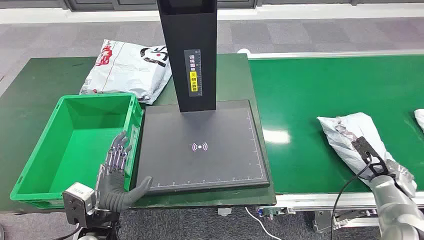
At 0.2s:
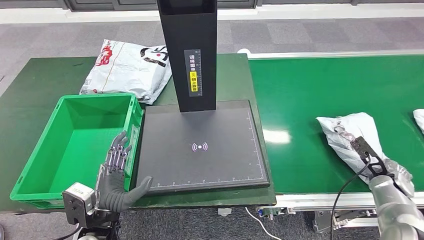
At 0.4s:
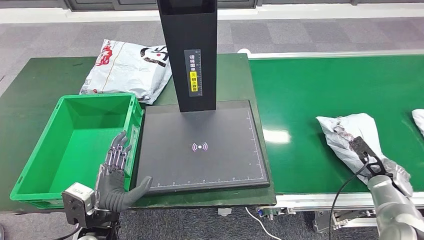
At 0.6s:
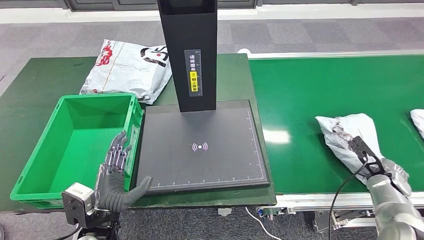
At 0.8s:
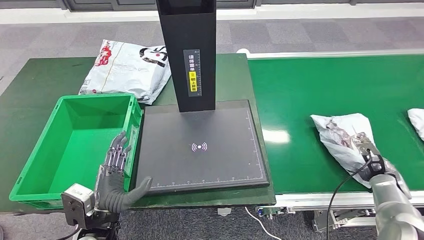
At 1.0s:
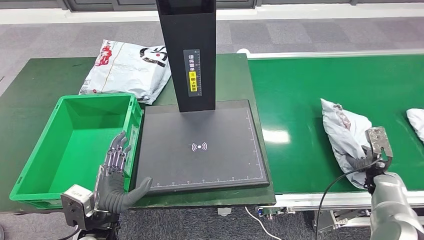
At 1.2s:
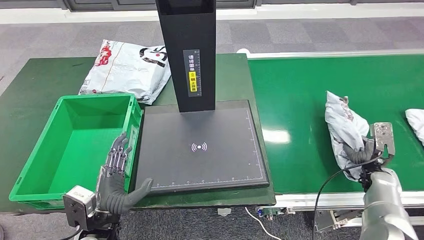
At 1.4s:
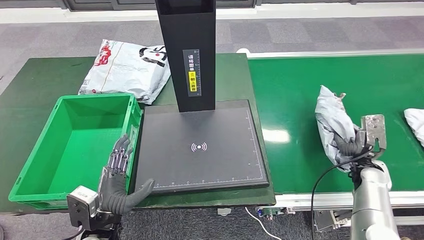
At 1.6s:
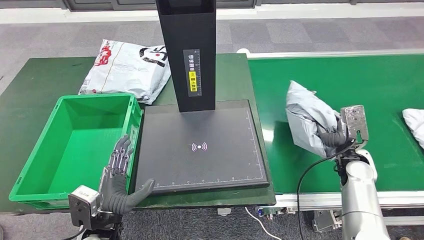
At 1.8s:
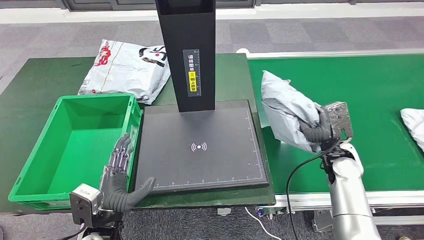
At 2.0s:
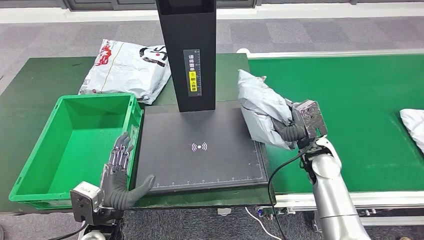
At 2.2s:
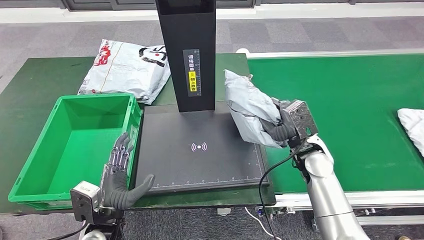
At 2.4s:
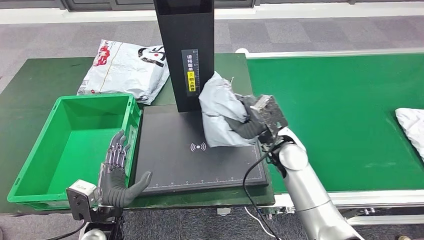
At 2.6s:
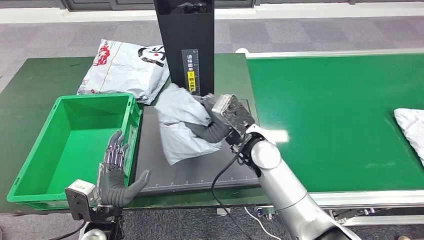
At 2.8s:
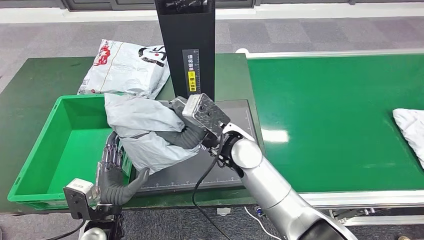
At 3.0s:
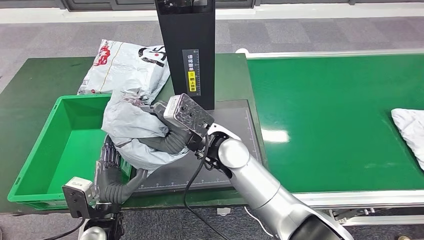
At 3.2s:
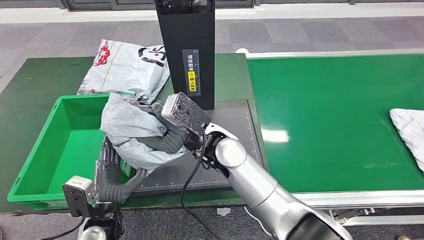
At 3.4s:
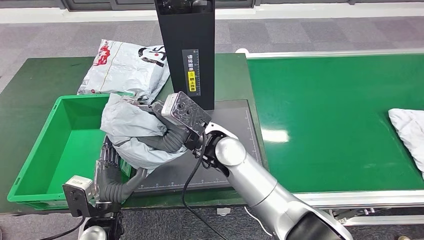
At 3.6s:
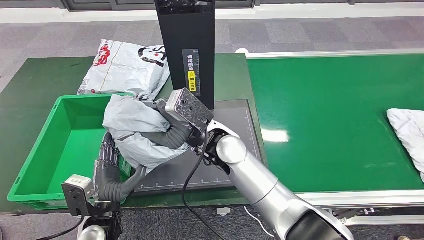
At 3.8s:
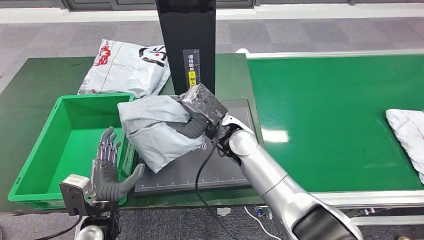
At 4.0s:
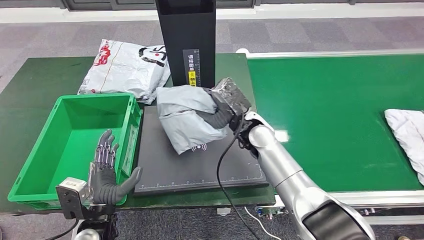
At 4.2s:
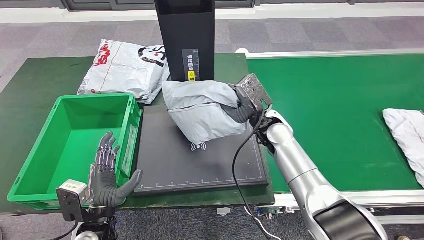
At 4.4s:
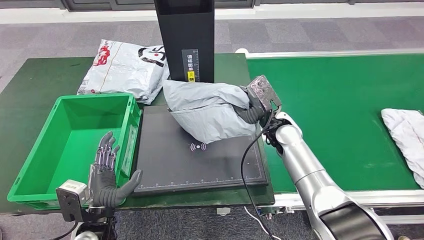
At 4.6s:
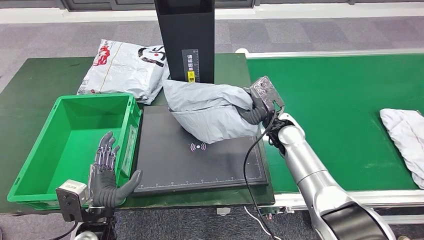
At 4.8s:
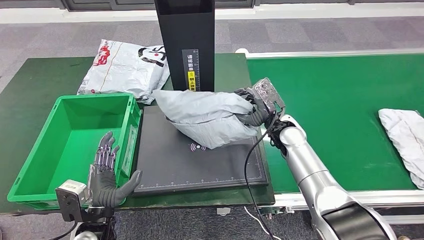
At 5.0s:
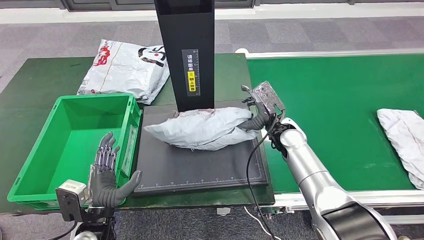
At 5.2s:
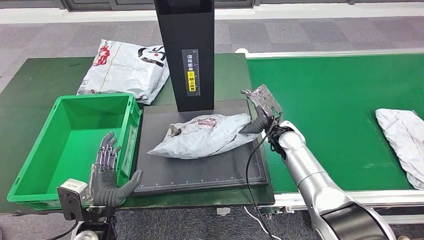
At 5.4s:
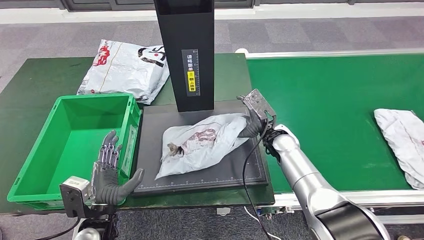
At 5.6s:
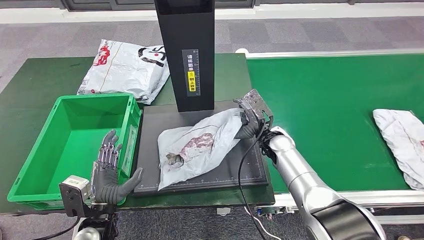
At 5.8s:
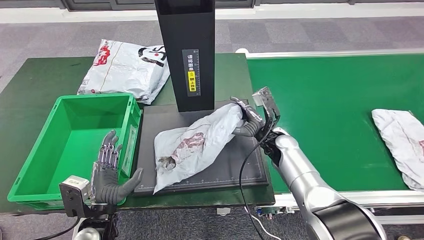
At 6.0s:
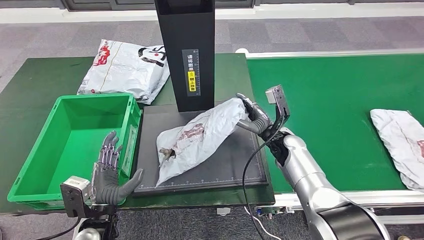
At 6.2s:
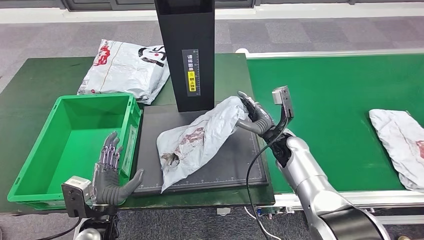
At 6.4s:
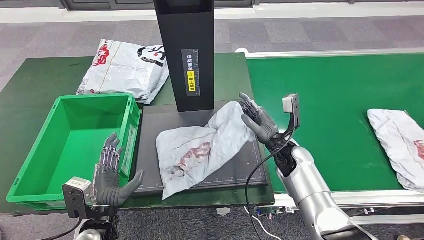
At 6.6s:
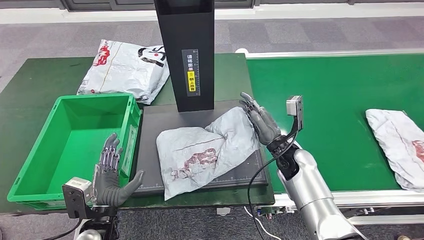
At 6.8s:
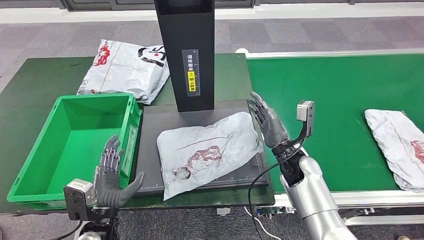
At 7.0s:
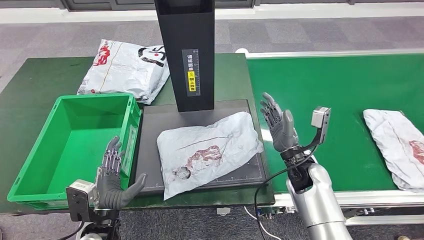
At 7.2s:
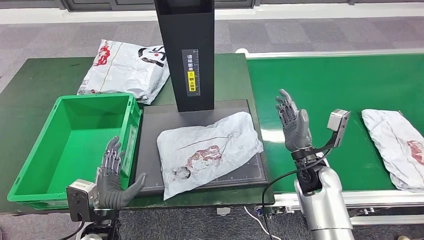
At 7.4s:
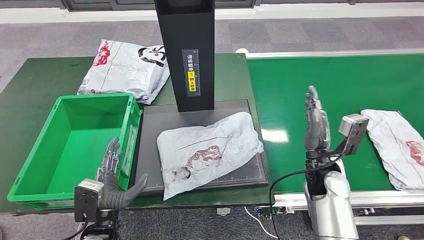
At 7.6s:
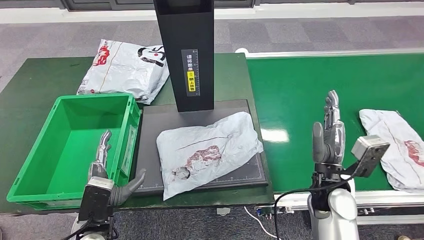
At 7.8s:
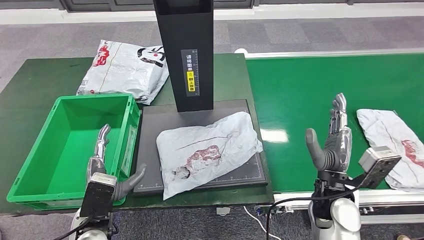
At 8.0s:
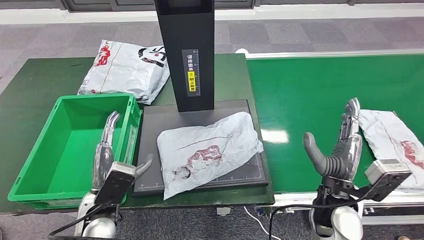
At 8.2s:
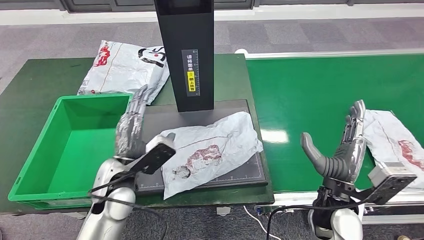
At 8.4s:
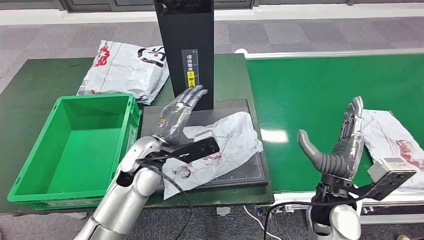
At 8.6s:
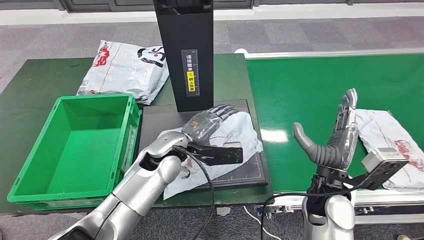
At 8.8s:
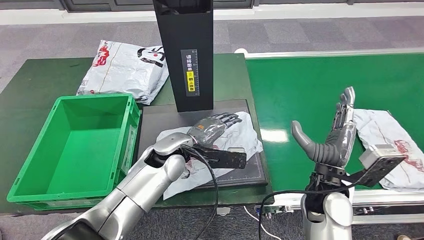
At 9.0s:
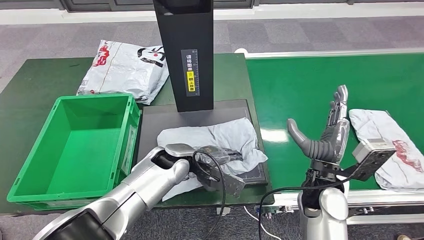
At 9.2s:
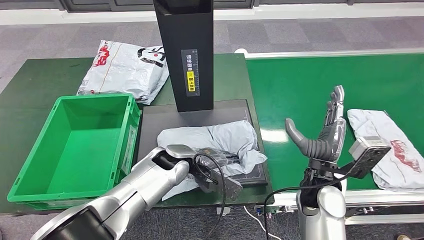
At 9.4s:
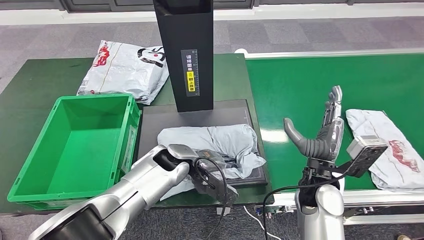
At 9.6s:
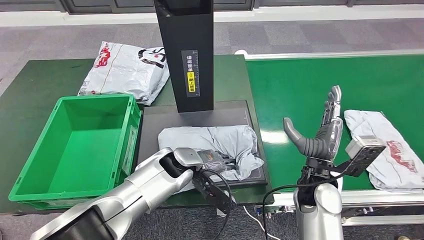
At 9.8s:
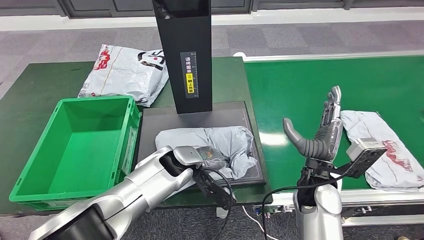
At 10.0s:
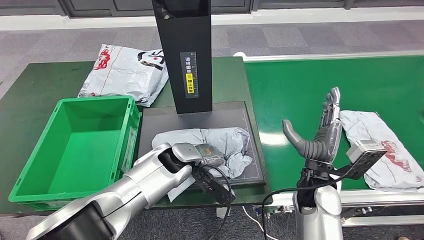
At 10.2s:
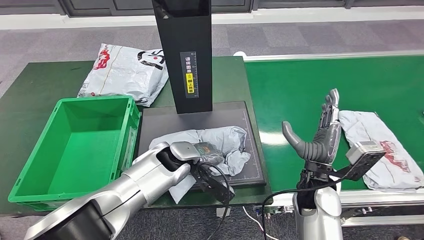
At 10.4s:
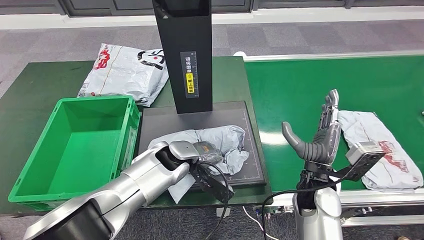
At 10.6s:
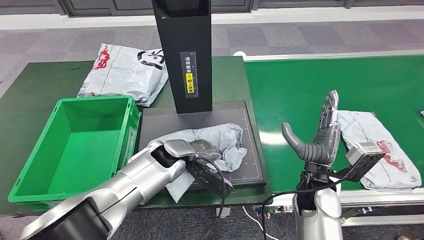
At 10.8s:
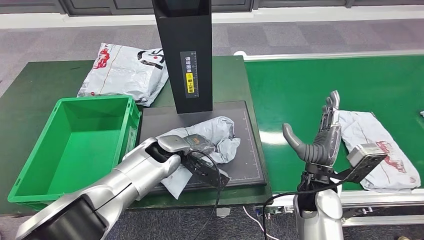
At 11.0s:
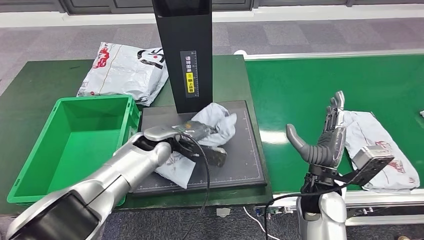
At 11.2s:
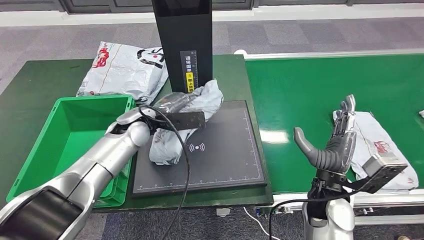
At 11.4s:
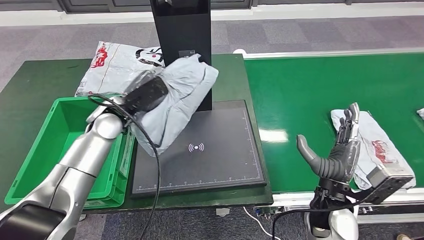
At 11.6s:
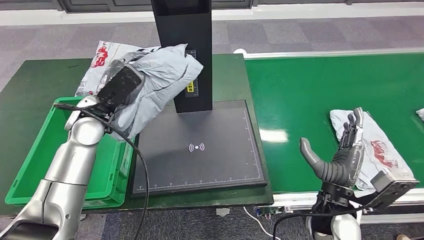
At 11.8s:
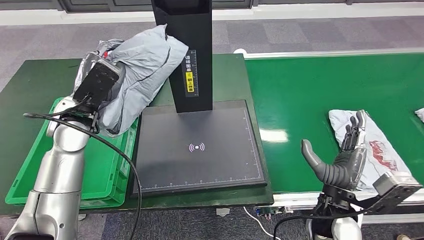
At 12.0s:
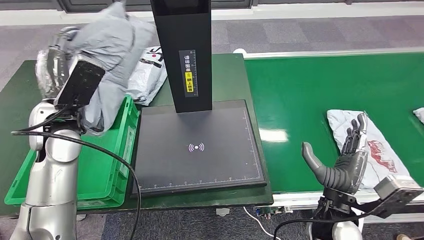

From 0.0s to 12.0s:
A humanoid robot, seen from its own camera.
Step, from 0.0s to 1.2s: Take the parcel off the conveyor belt.
Step, from 2.8s to 6.4s: Place the parcel onto the inbound machine.
Step, from 6.6s to 11.6s: Pick up the parcel from the inbound machine.
From 4.4s to 6.0s: The right hand moves downward, roughly 5 cm.
From 6.0s to 7.6s: The right hand heads backward, covering some 15 cm.
From 7.6s to 9.0s: The left hand travels to the right and forward by some 20 cm.

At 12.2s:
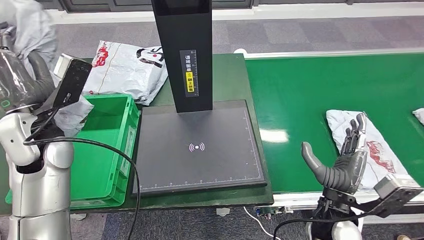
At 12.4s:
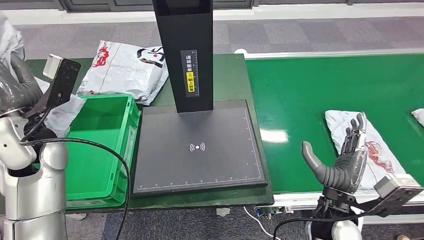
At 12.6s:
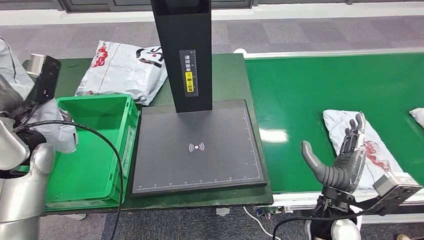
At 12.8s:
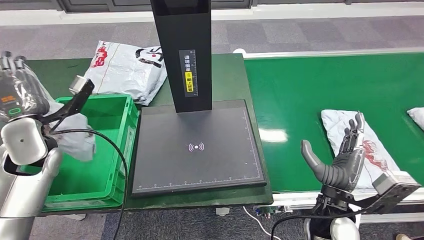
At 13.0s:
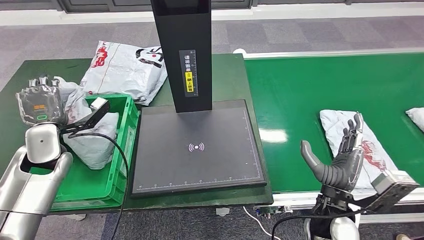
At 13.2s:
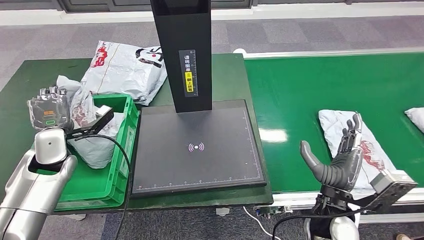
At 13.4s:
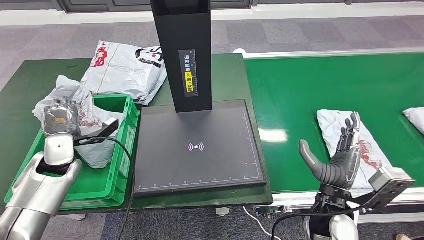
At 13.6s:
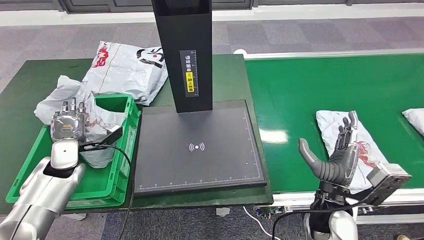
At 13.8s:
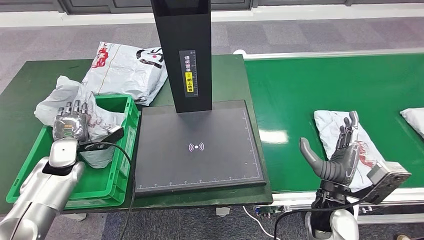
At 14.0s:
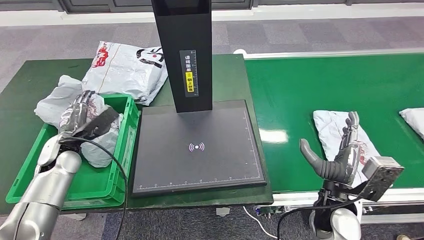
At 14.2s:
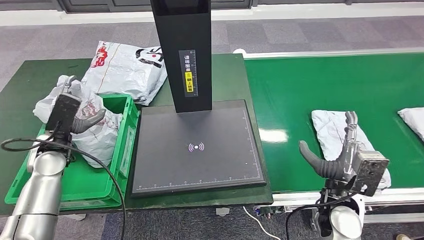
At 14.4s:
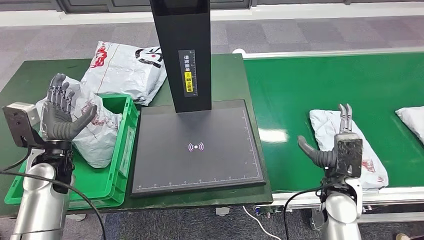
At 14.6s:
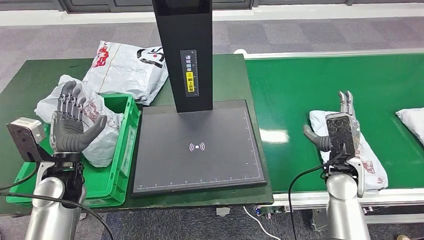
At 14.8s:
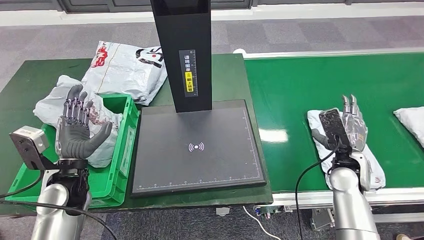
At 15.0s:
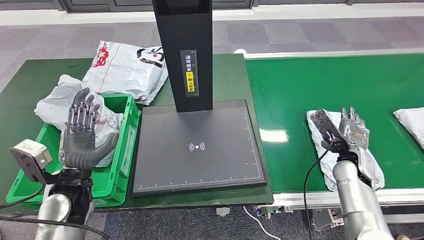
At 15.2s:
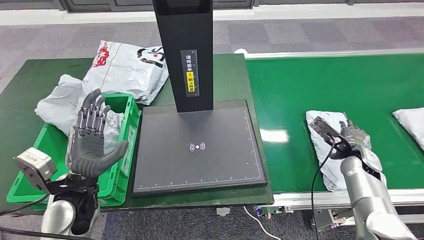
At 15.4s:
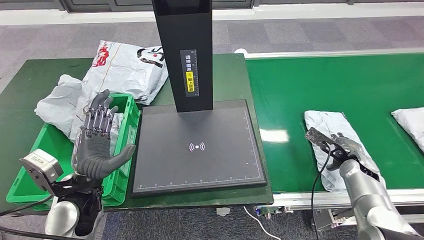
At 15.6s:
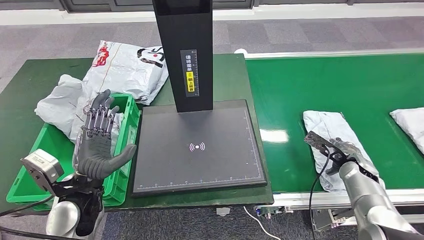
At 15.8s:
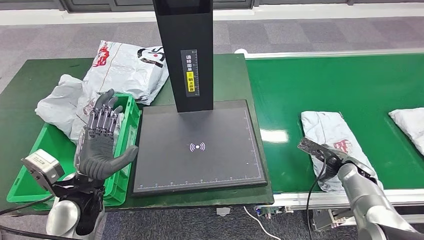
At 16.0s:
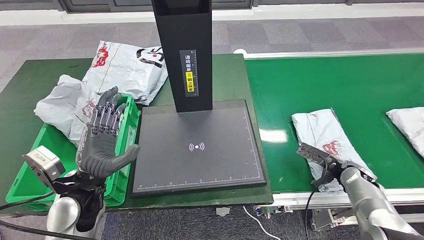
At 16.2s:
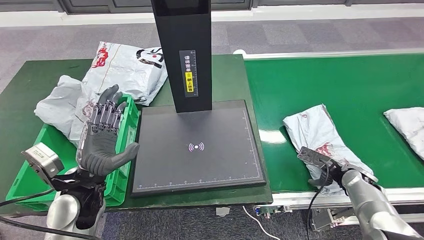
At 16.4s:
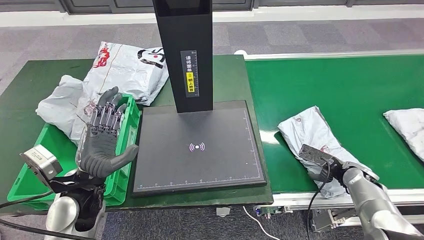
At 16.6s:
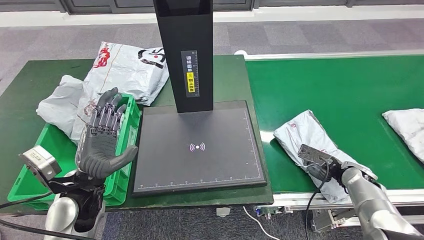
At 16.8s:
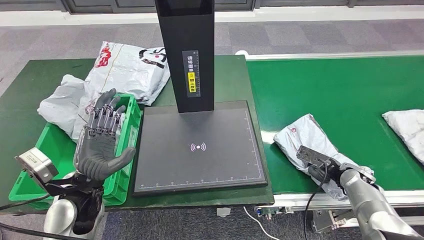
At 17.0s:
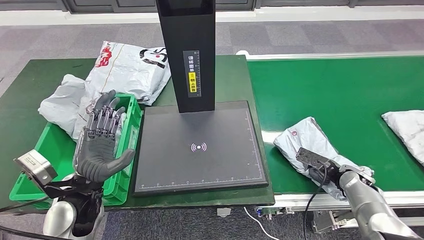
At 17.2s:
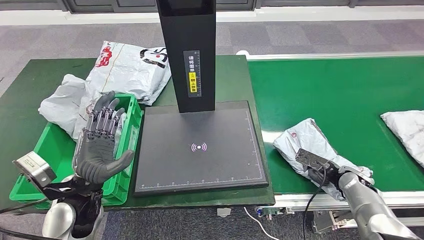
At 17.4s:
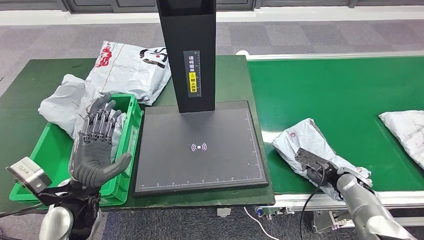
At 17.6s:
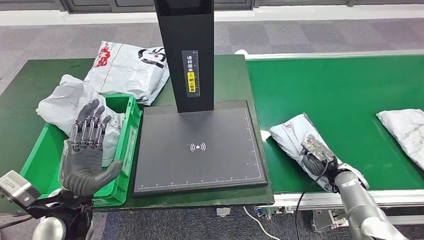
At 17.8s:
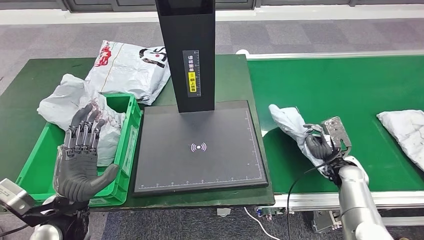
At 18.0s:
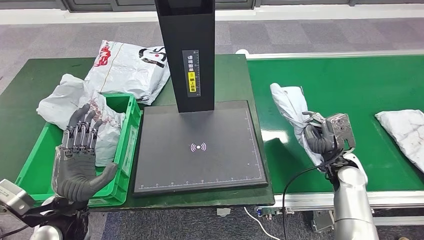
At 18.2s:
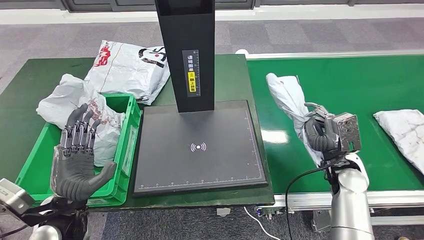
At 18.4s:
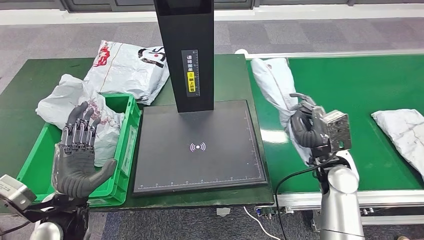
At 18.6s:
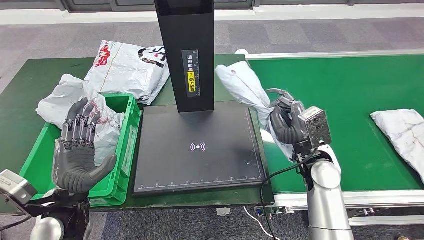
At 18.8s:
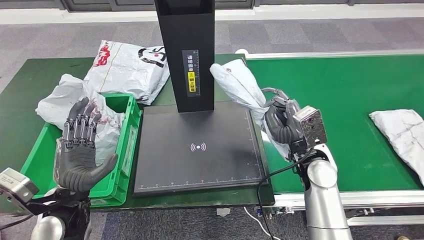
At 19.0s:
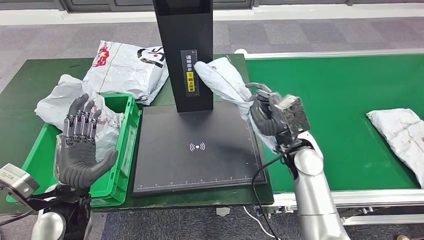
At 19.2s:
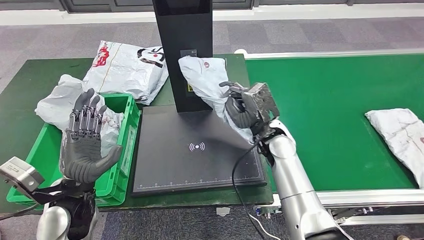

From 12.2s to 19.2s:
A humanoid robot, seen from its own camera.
Step, from 12.2s to 14.2s: Put the parcel inside the courier box.
Step, from 16.8s to 18.4s: Pick up the parcel from the conveyor belt.
